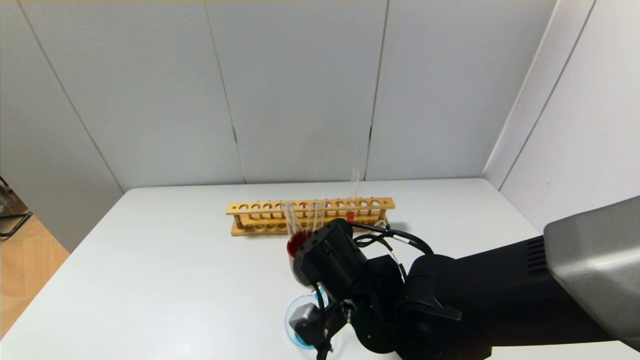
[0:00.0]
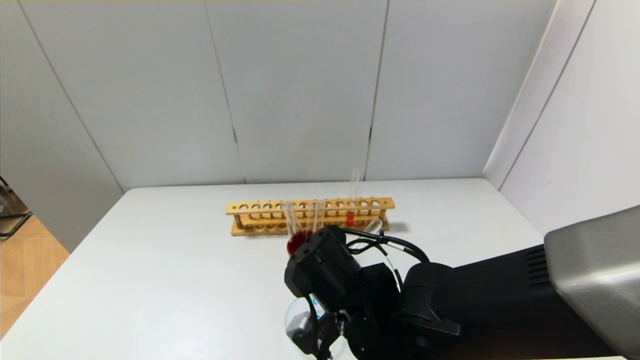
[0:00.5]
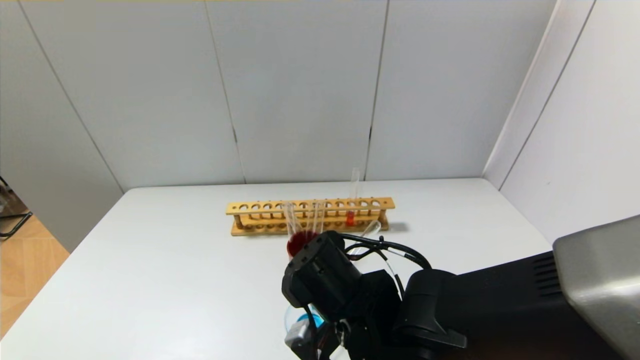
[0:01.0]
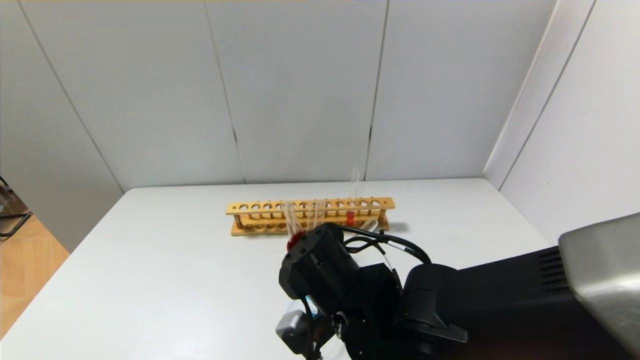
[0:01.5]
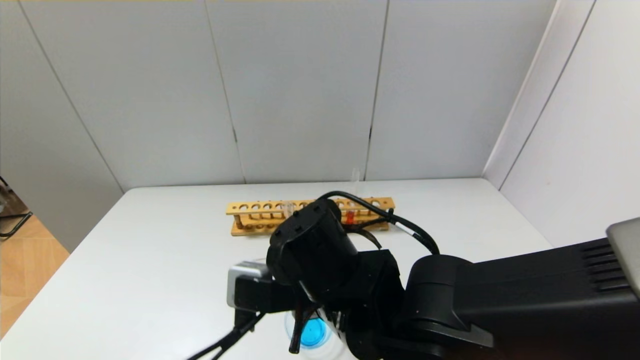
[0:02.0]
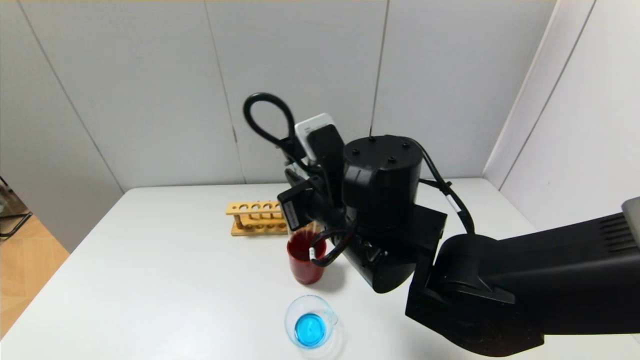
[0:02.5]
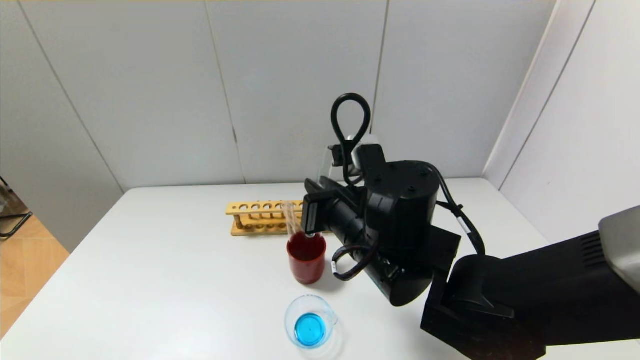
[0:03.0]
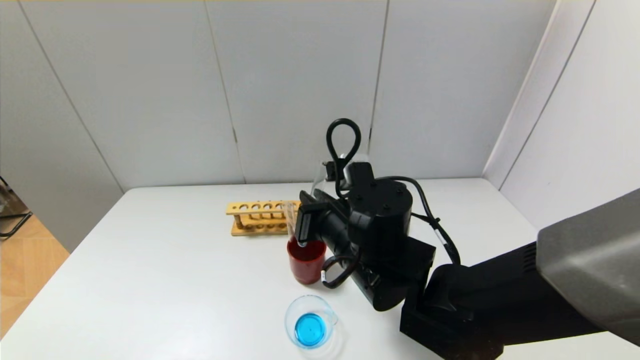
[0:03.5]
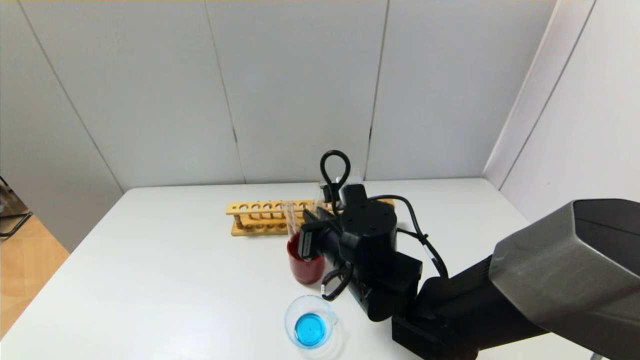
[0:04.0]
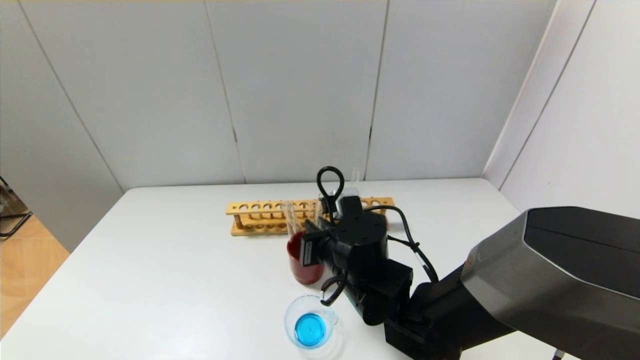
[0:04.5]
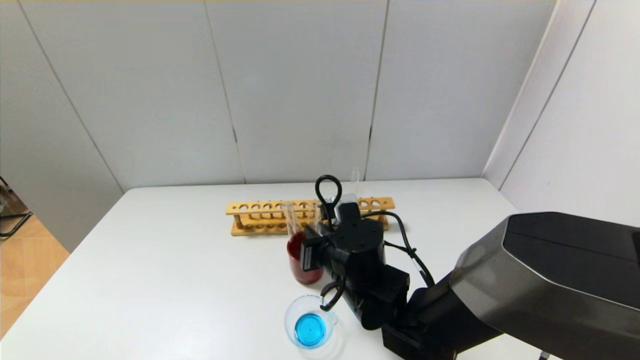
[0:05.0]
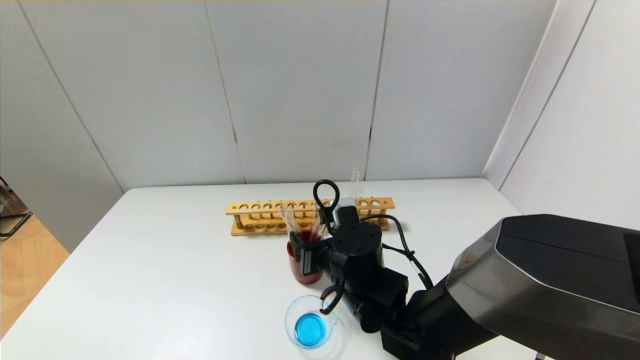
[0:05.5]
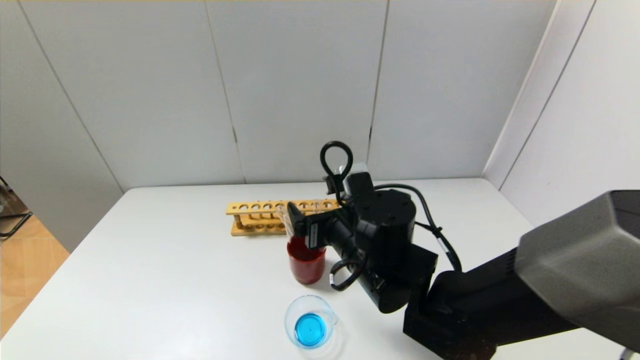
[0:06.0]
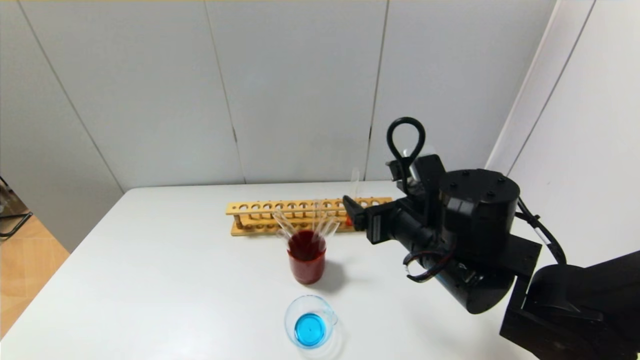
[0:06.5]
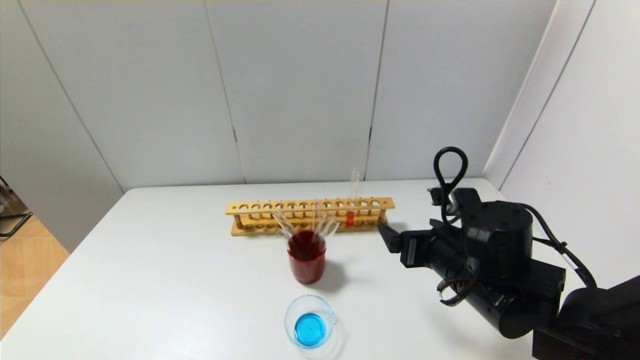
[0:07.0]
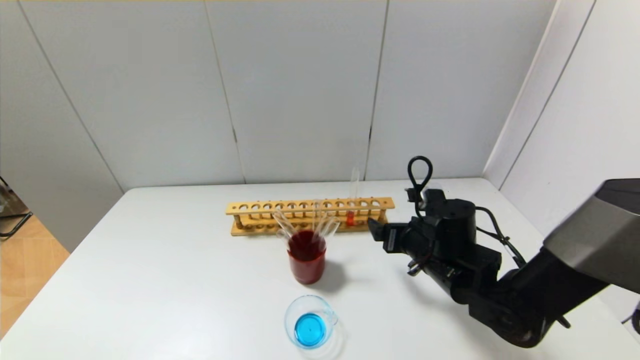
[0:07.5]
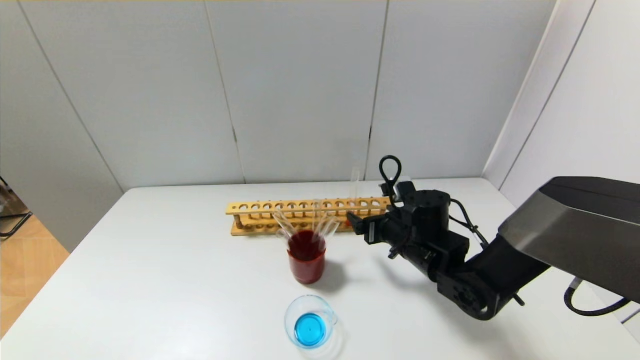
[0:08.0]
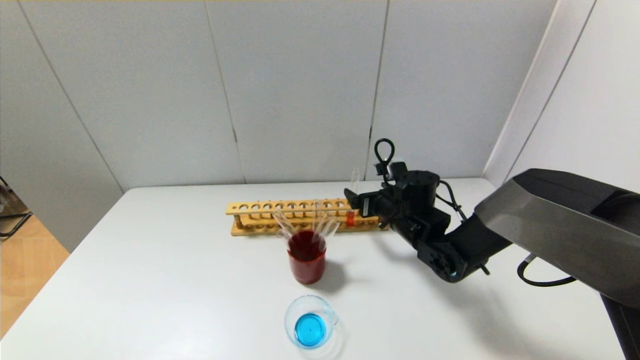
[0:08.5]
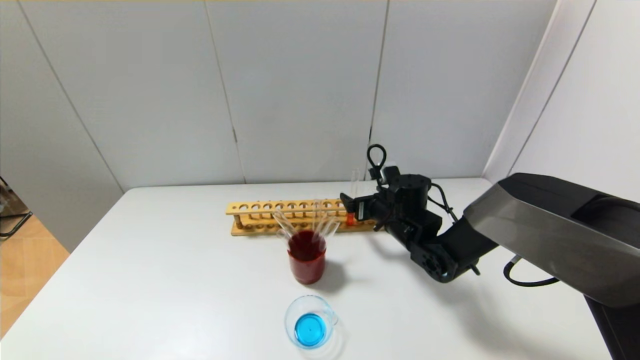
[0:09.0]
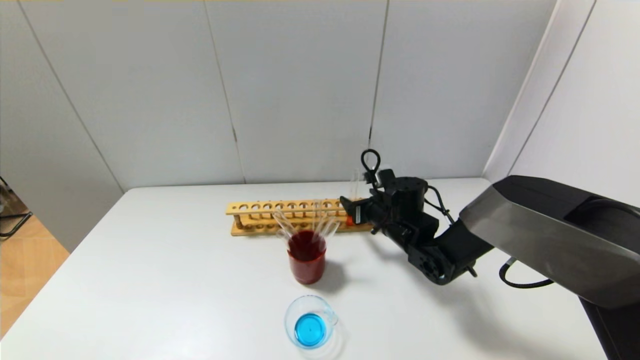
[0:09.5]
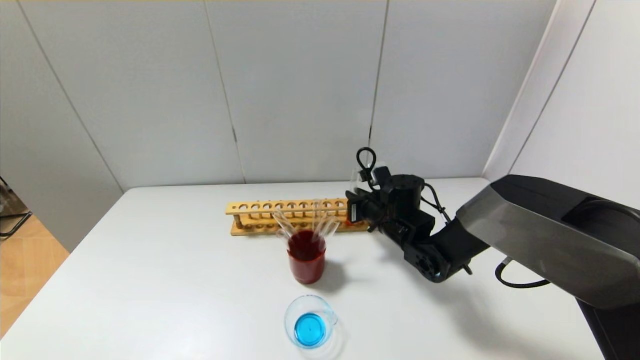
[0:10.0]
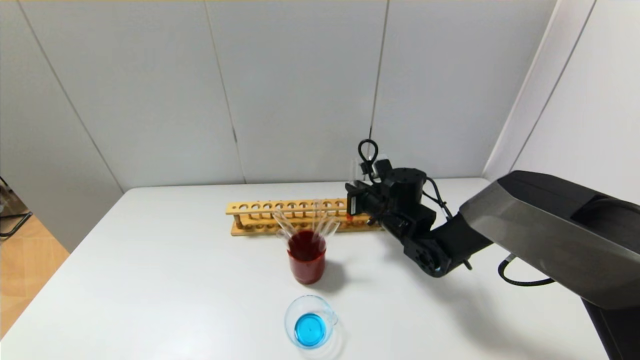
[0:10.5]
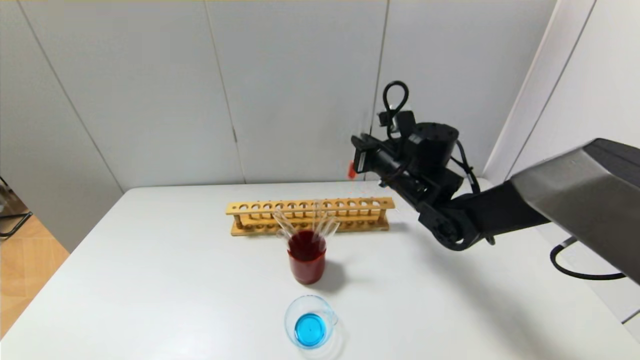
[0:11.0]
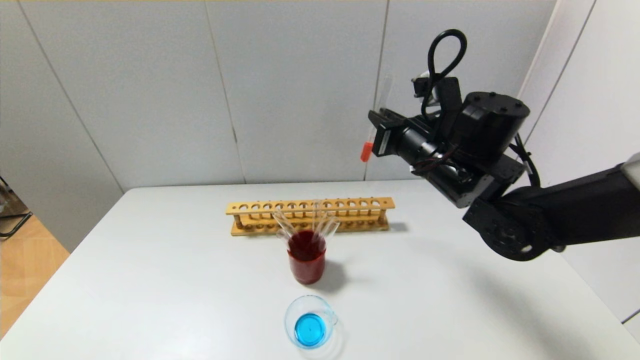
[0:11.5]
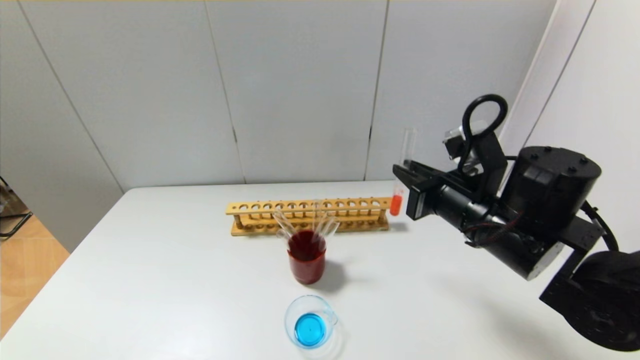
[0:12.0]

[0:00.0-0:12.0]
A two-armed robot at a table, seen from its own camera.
Step, 1.5 to 5.5 s: Place the test tube into the brown cup with the right gripper.
Step, 6.0 to 10.5 s: Grasp the red reagent with the right gripper.
0.0 to 2.0 s: The right gripper ends up some 5 cm from where it was.
2.0 to 4.0 s: The right gripper is displaced forward by approximately 5 cm.
4.0 to 6.0 s: The right gripper opens up.
6.0 to 8.0 s: The right gripper shifts approximately 15 cm to the right, forward and downward.
8.0 to 10.0 s: The right gripper goes approximately 5 cm forward, and closes up.
10.0 to 12.0 s: The right gripper goes about 20 cm backward, upward and to the right.

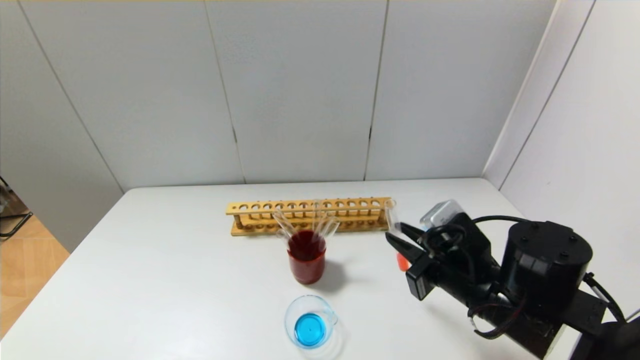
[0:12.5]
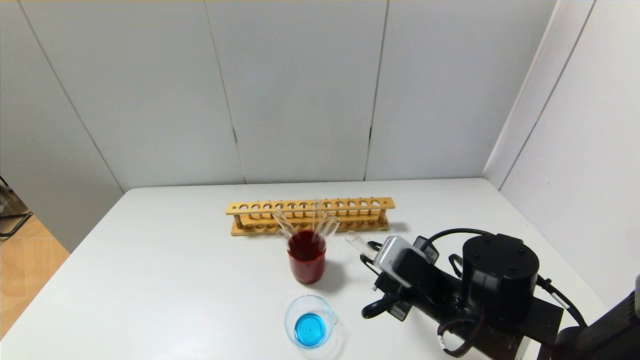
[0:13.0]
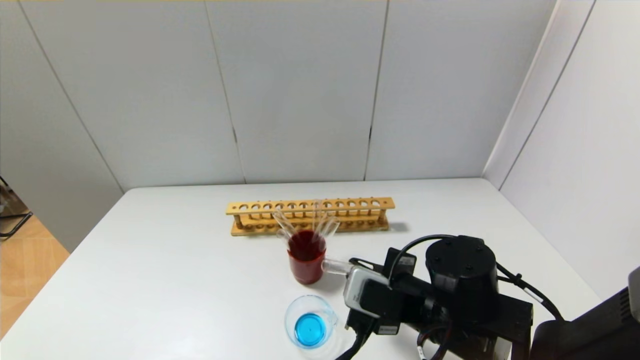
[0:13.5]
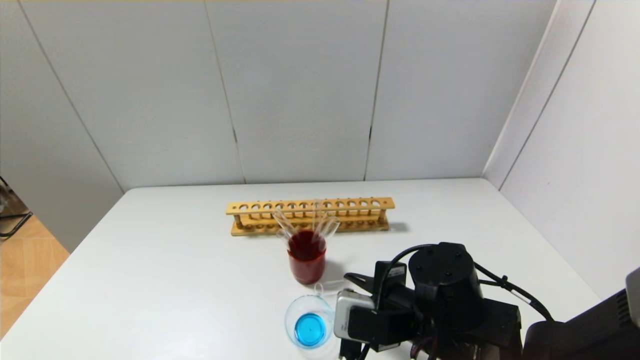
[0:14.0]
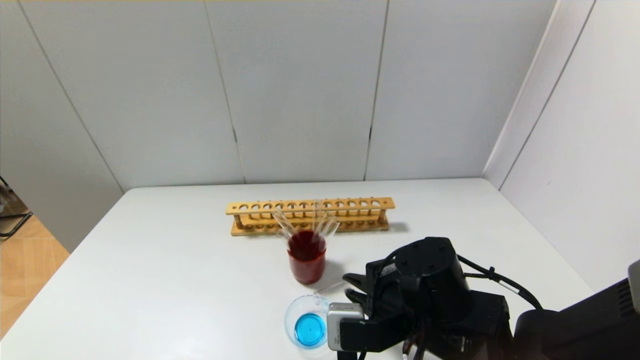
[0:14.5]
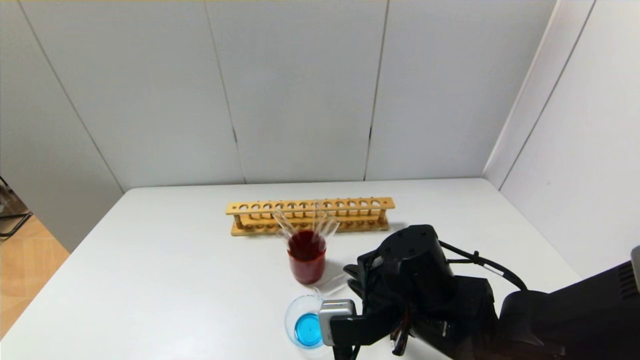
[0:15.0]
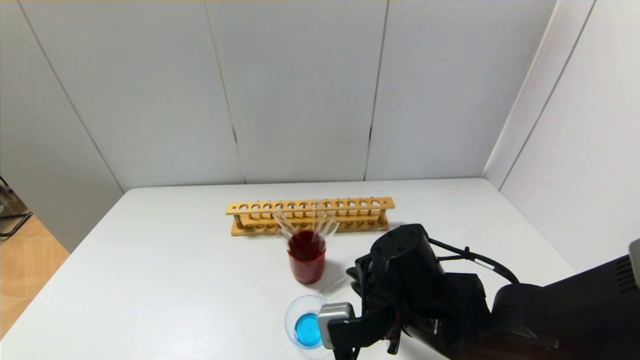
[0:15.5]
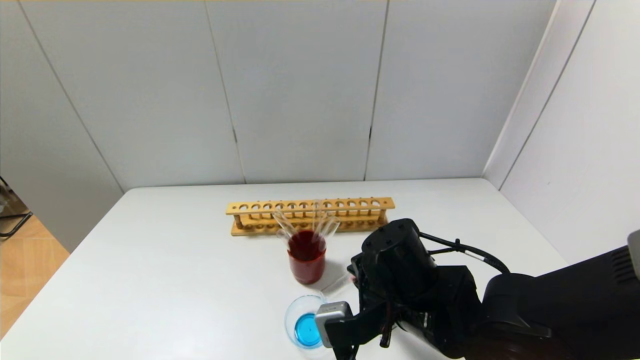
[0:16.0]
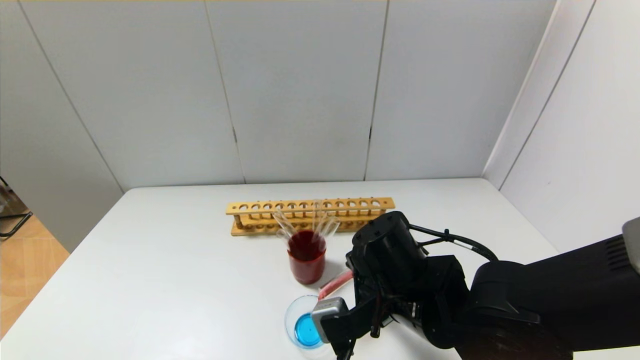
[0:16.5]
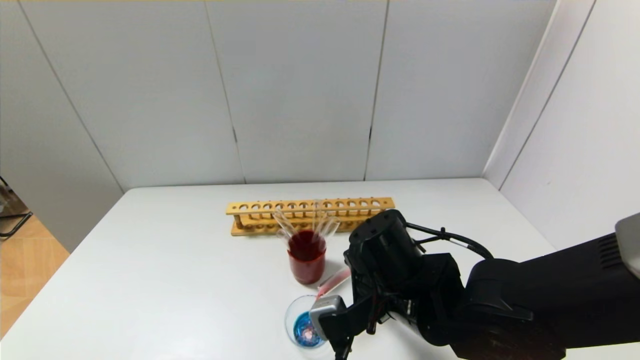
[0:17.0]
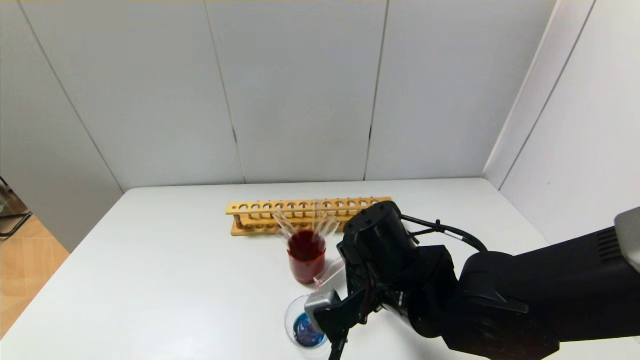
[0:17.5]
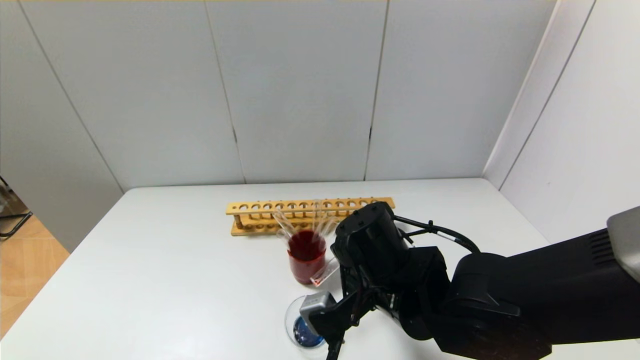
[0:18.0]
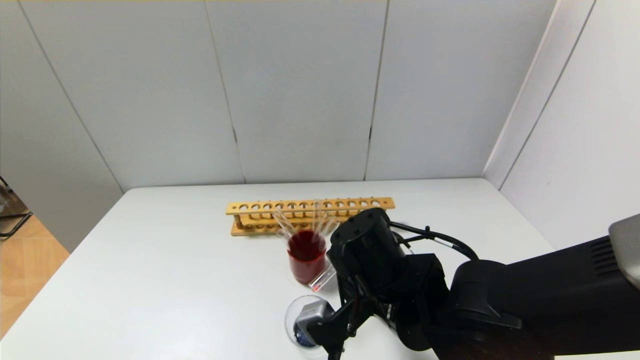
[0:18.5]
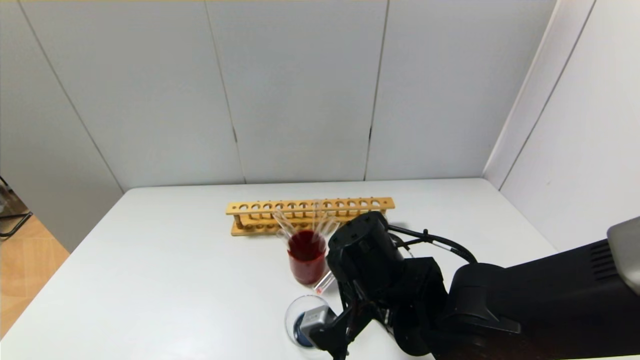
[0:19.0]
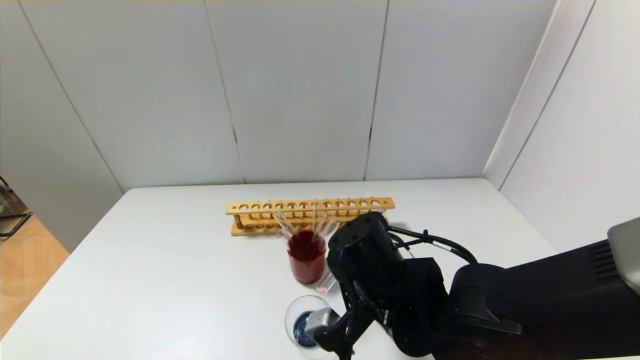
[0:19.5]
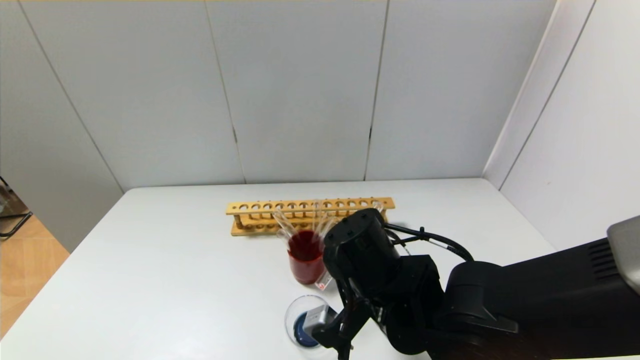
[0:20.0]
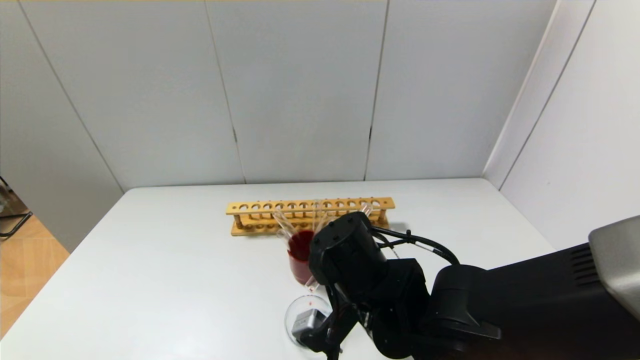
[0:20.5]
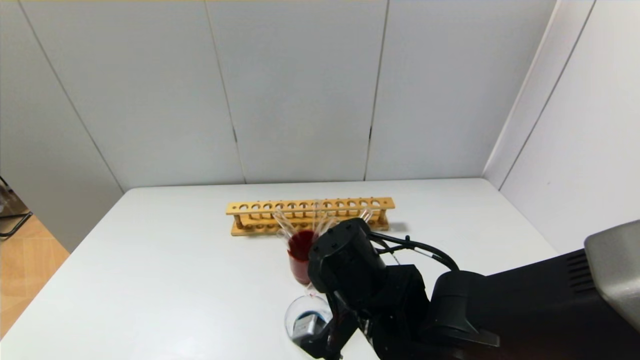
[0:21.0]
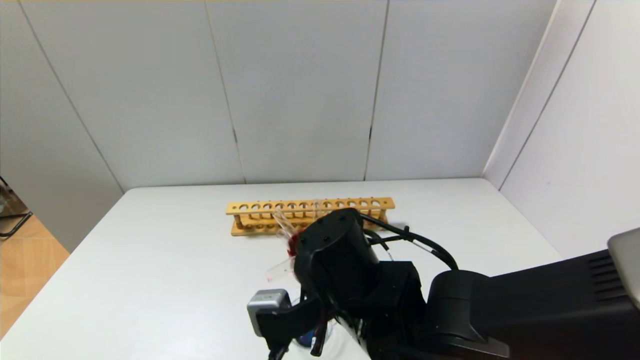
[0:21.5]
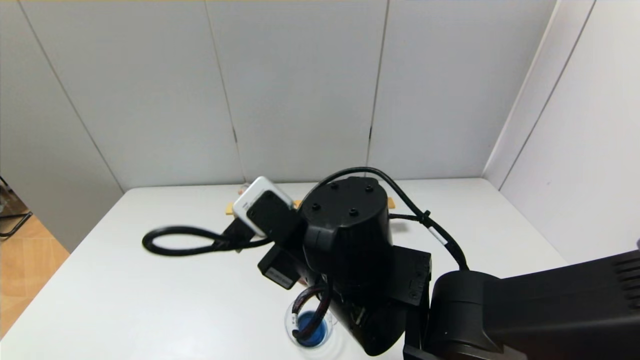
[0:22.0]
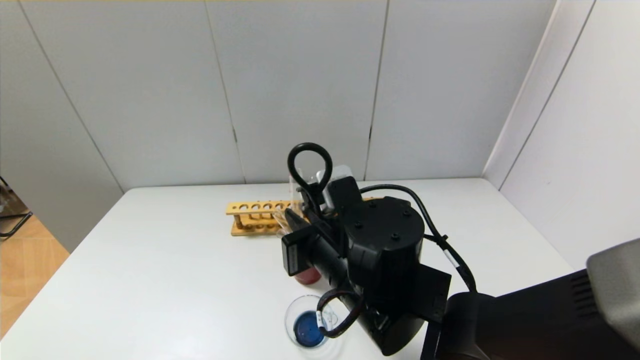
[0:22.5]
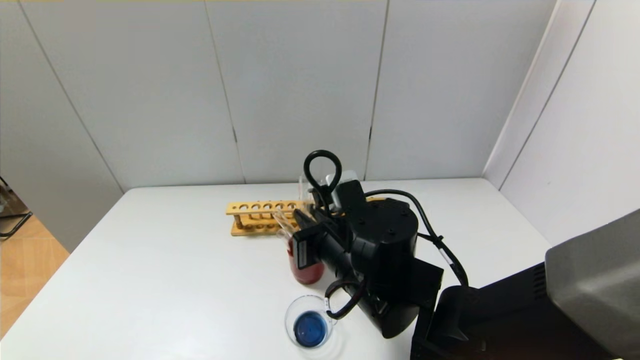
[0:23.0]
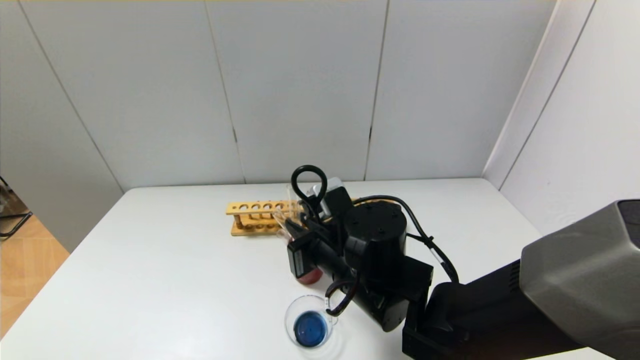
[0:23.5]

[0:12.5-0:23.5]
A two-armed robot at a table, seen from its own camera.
Step, 12.5 to 21.0 s: Pour the red reagent into the graduated cylinder with the right gripper.
12.5 to 14.5 s: The right gripper is displaced to the left by roughly 5 cm.
16.0 to 18.0 s: The grippers stay close to where they were, moving slightly.
18.0 to 20.0 s: The grippers make only small movements.
